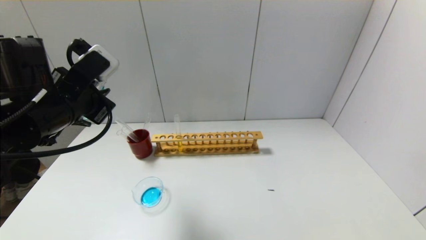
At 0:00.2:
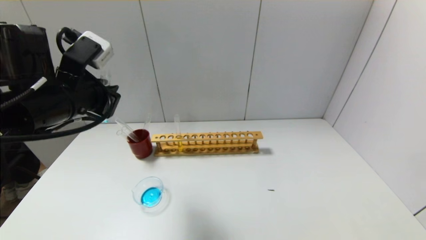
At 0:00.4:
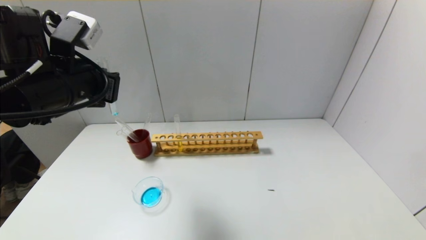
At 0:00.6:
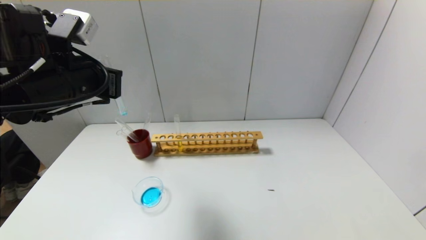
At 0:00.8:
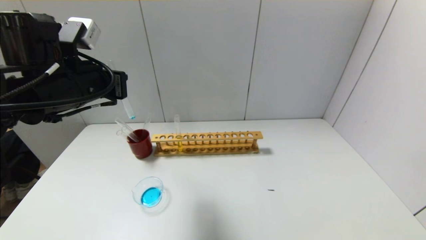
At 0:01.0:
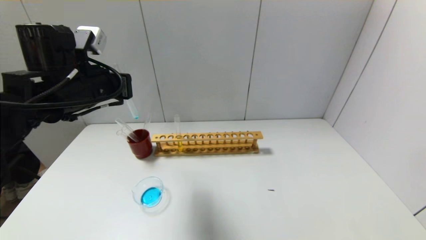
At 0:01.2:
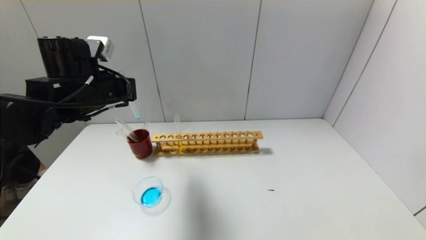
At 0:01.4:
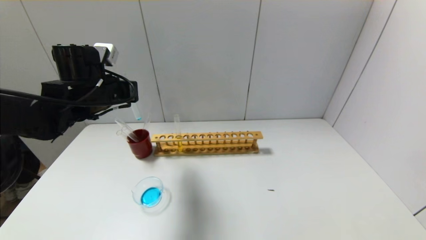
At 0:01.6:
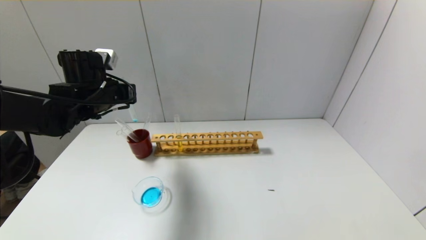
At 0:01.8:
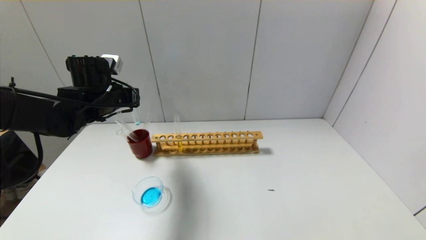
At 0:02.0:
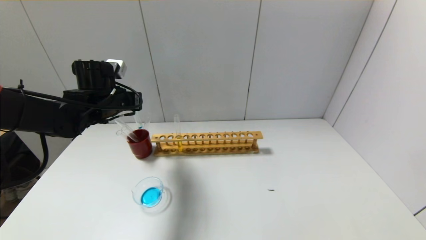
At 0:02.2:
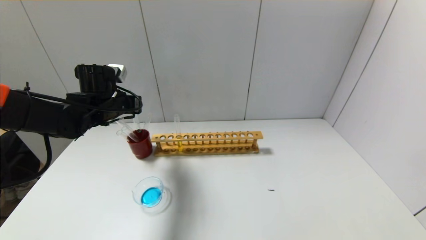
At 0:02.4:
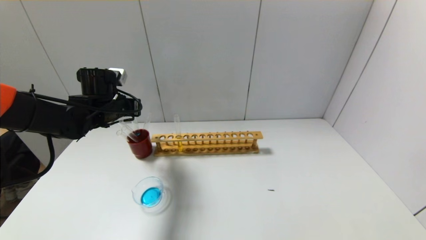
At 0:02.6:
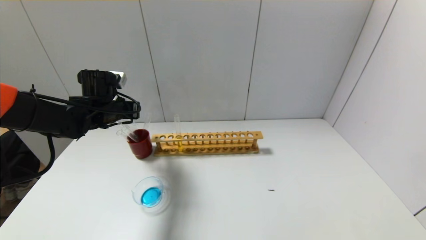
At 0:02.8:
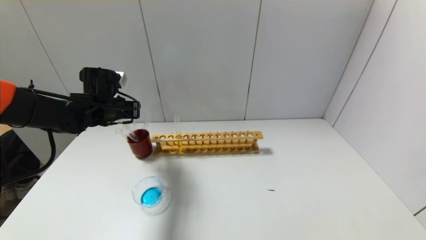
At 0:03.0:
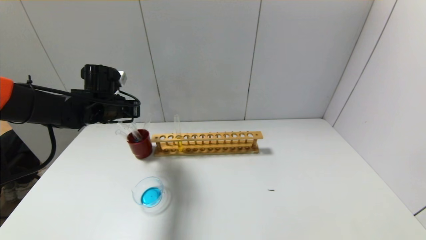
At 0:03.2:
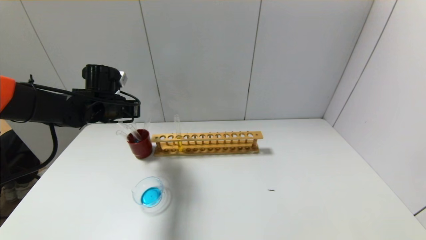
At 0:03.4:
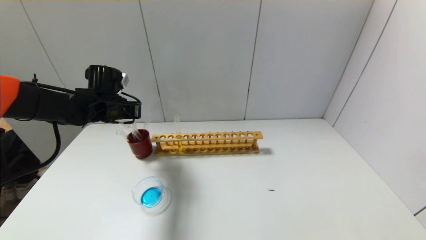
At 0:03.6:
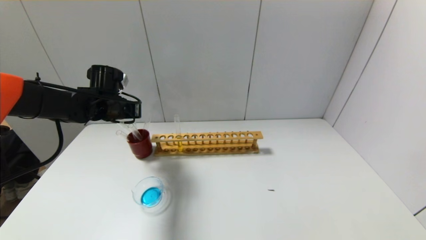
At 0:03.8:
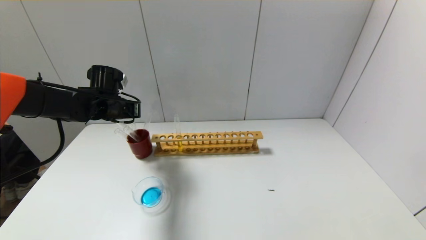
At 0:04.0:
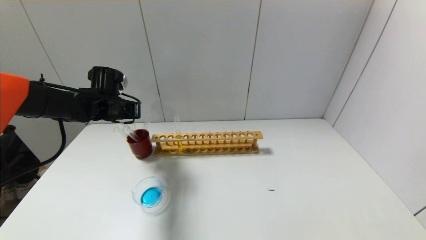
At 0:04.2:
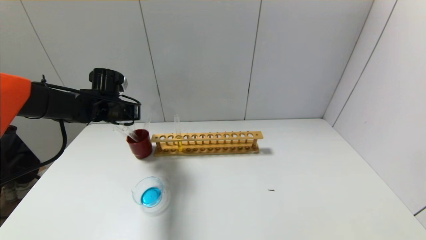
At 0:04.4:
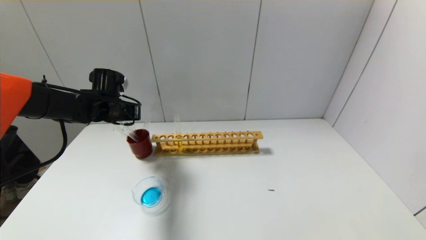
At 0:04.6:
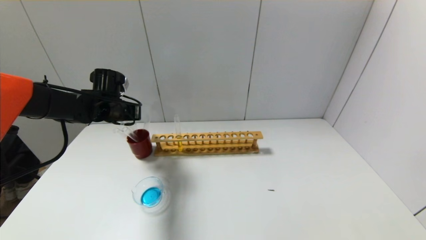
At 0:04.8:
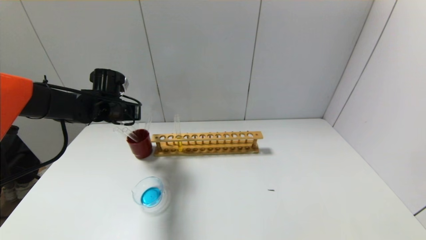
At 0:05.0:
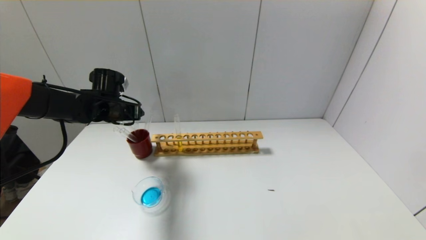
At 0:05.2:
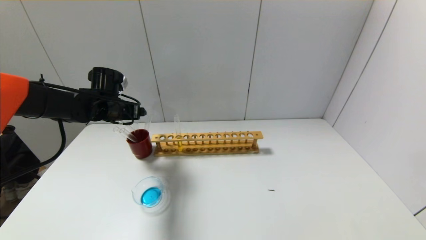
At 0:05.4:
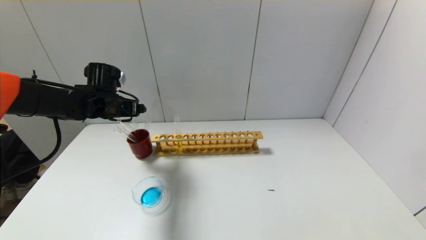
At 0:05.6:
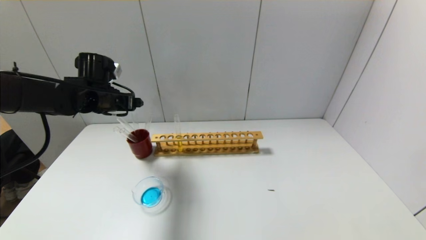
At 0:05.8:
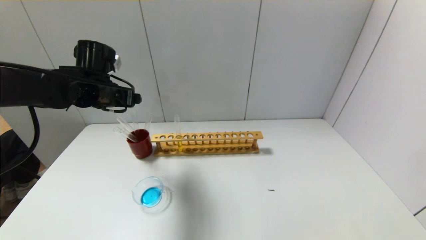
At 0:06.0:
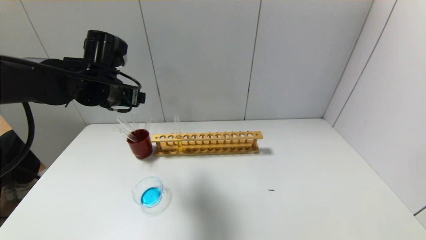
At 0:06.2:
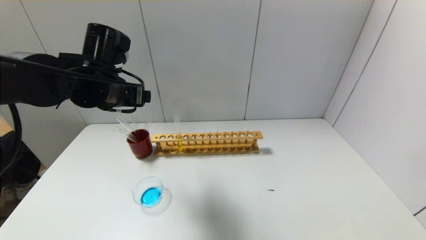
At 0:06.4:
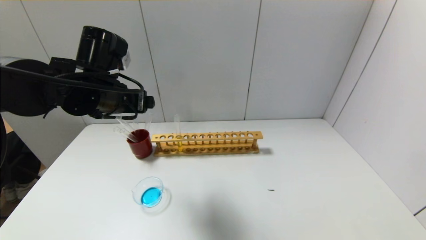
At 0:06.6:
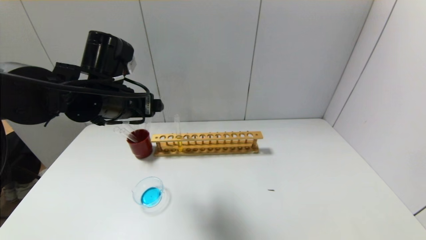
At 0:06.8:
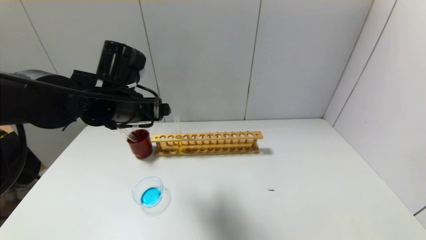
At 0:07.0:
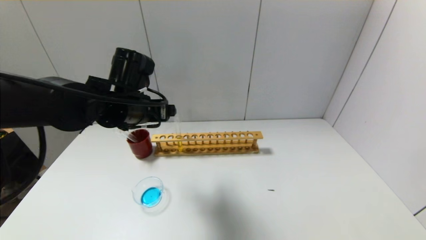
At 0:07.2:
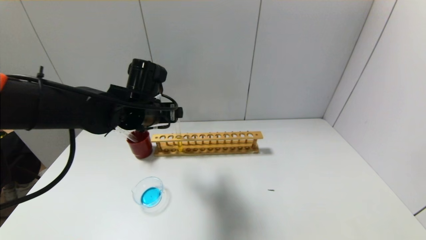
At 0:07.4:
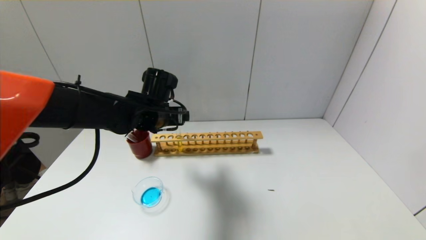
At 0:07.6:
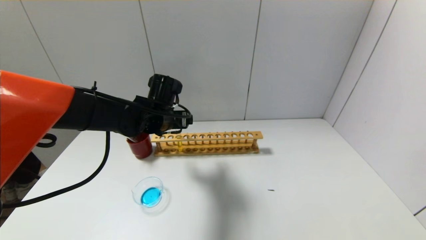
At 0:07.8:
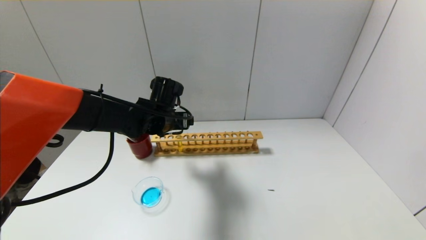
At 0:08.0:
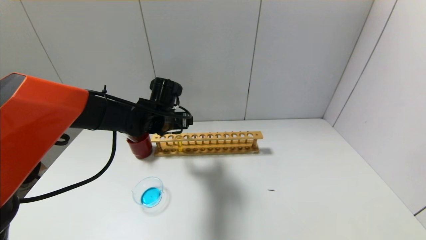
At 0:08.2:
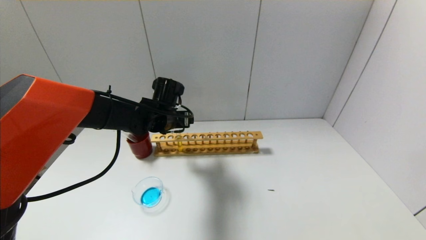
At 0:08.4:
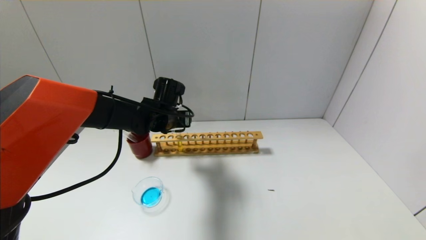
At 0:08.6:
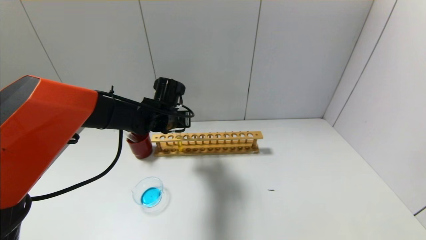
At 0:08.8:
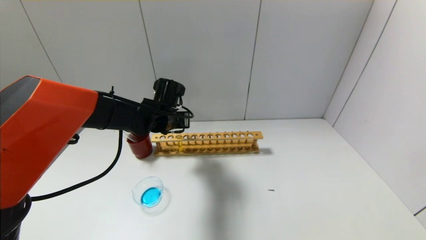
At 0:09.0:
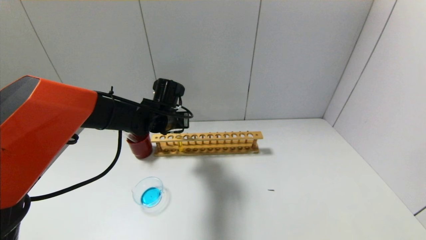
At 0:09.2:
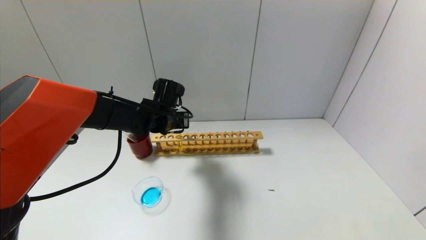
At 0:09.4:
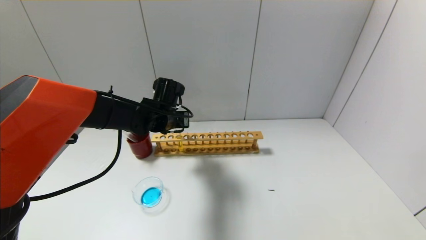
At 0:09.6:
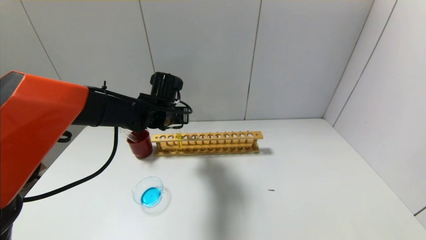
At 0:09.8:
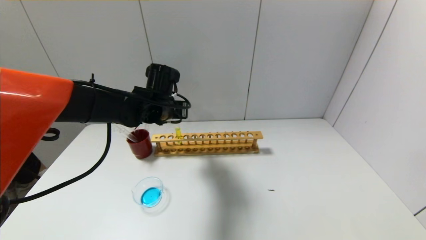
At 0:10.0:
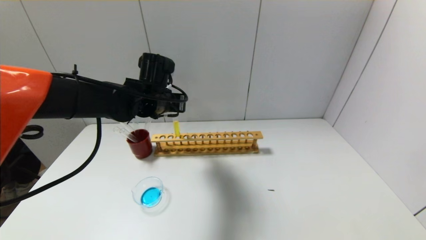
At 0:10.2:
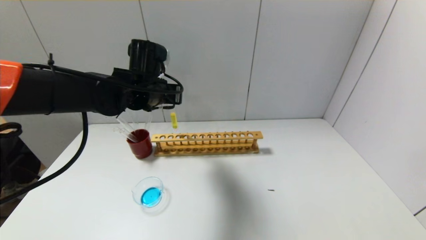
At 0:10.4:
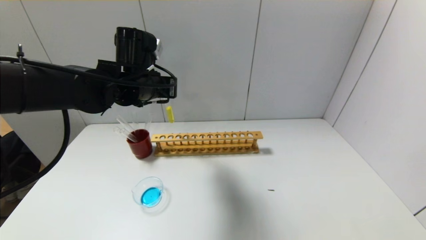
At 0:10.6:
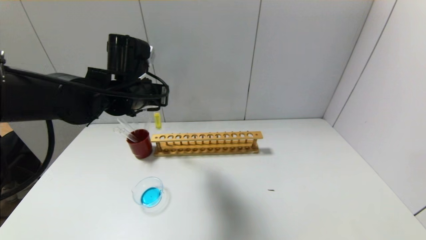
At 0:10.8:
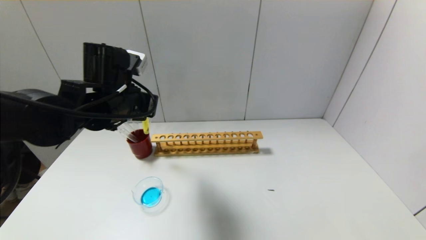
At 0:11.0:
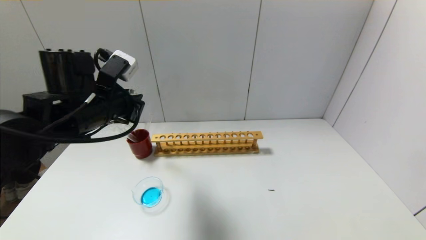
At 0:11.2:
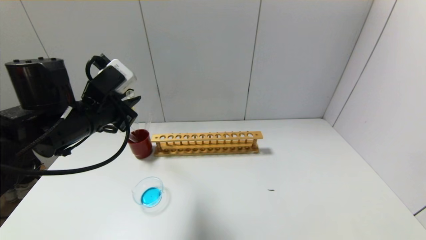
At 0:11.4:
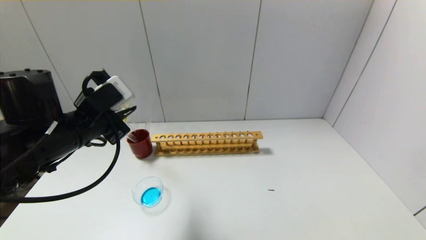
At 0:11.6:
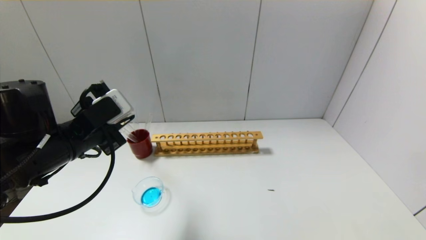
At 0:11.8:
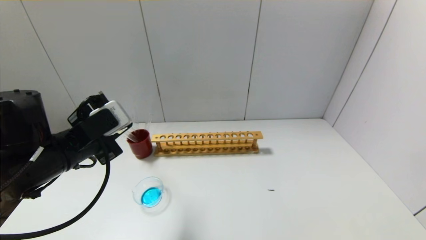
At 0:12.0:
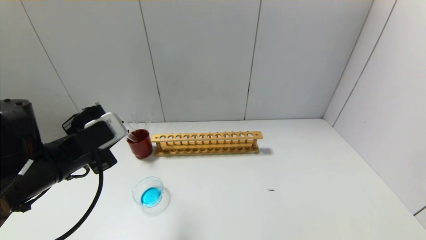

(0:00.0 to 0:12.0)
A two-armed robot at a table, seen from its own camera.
Step, 0:00.0 - 0:04.8: Place the test tube into the brown cup with the left gripper.
Step, 0:05.0 - 0:08.8: Grasp the yellow reagent with the left gripper.
0:00.0 - 0:01.6: The left gripper moves forward, approximately 10 cm.
0:01.6 - 0:03.0: The left gripper moves roughly 5 cm.
0:03.0 - 0:04.4: The grippers make only small movements.
0:04.4 - 0:06.0: The left gripper goes about 10 cm upward, backward and to the right, and opens up.
0:06.0 - 0:07.6: The left gripper travels to the right and downward by roughly 10 cm.
0:07.6 - 0:09.0: The left gripper closes its fingers.
0:09.0 - 0:10.4: The left gripper travels upward and backward by about 10 cm.
0:10.4 - 0:12.0: The left gripper moves backward, to the left and downward, some 20 cm.

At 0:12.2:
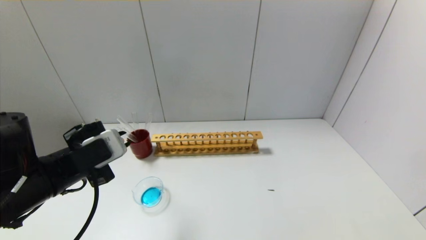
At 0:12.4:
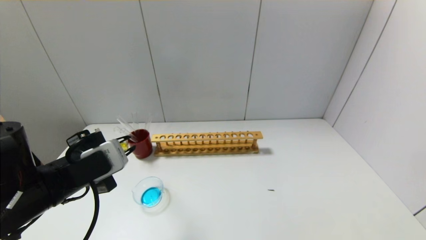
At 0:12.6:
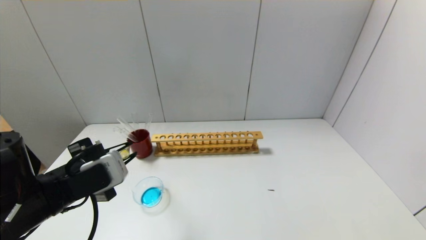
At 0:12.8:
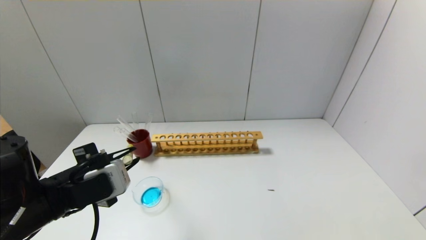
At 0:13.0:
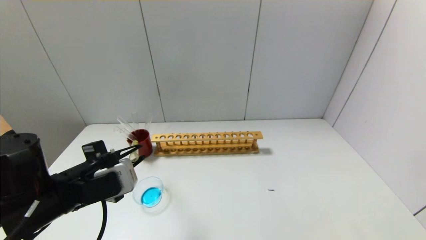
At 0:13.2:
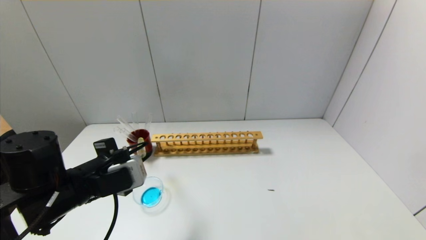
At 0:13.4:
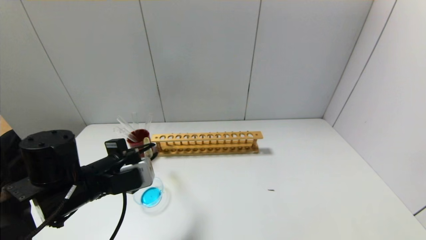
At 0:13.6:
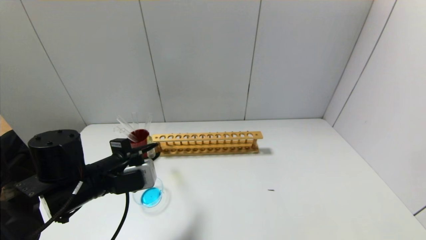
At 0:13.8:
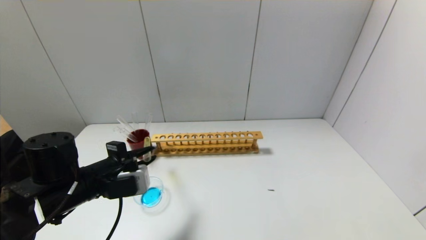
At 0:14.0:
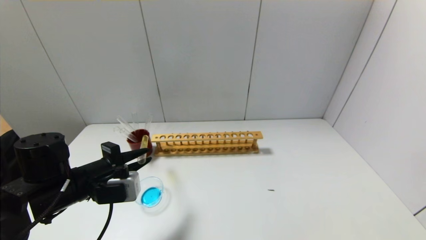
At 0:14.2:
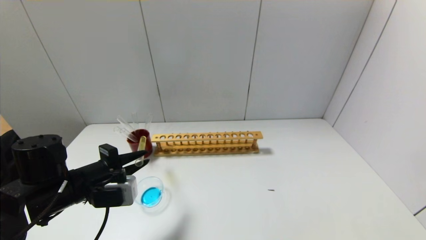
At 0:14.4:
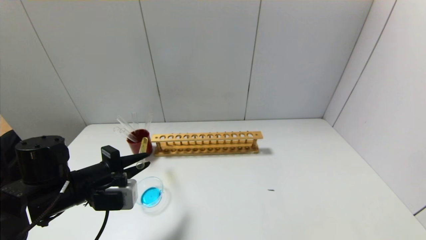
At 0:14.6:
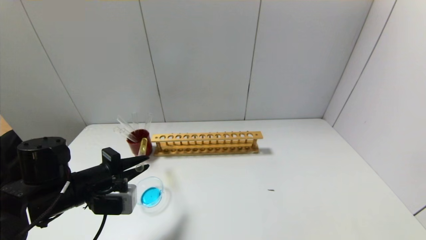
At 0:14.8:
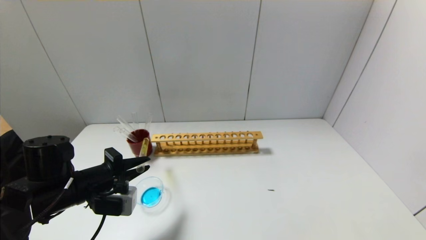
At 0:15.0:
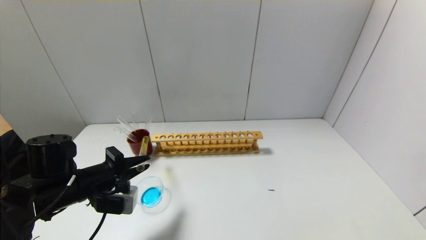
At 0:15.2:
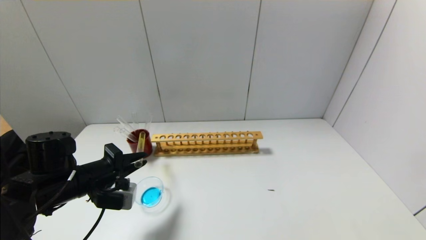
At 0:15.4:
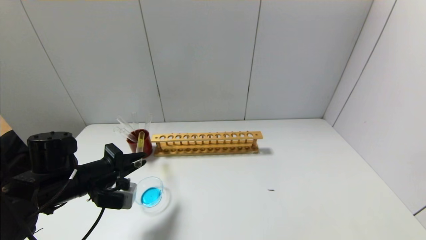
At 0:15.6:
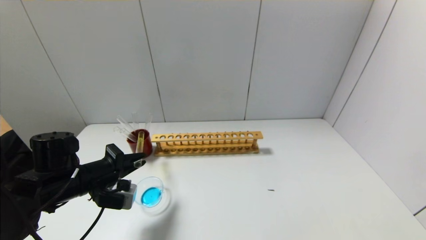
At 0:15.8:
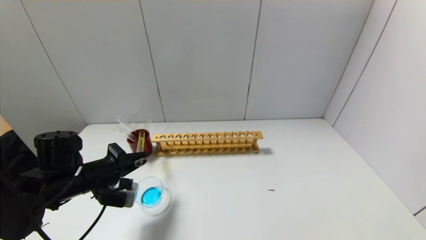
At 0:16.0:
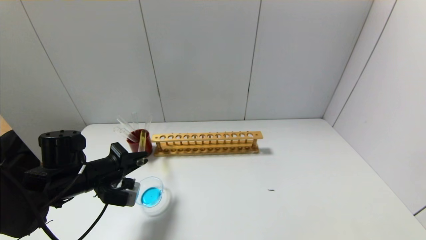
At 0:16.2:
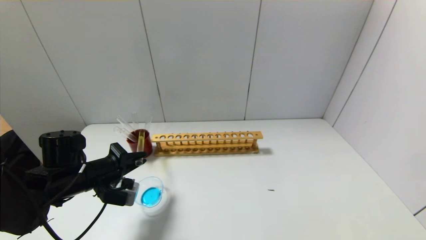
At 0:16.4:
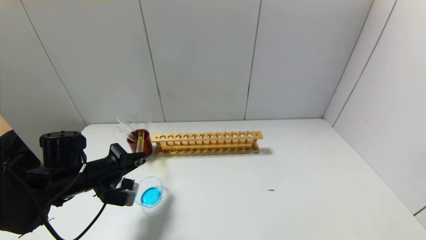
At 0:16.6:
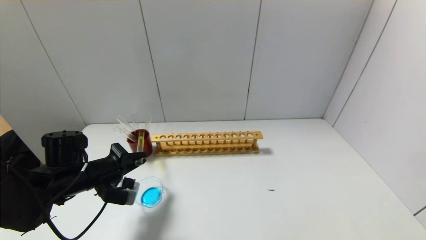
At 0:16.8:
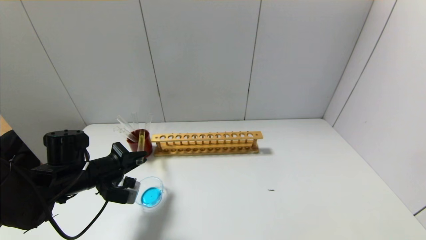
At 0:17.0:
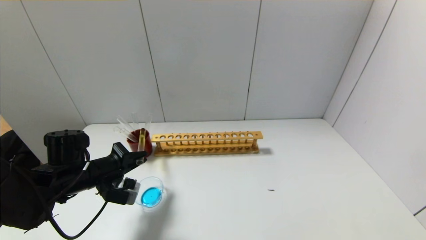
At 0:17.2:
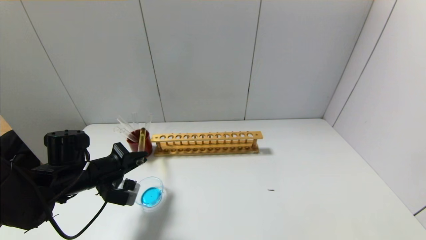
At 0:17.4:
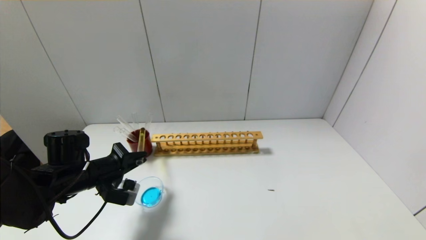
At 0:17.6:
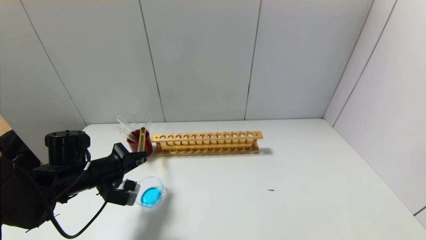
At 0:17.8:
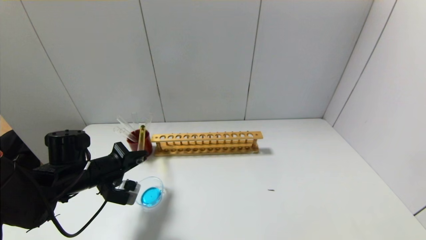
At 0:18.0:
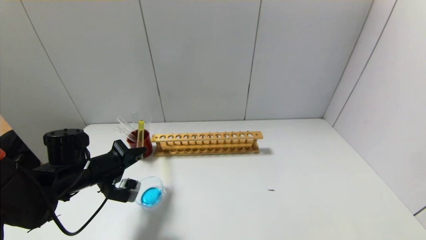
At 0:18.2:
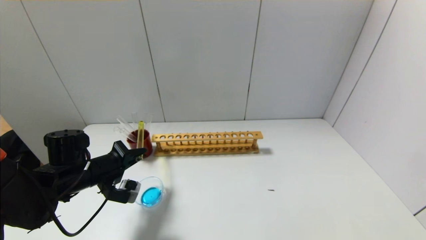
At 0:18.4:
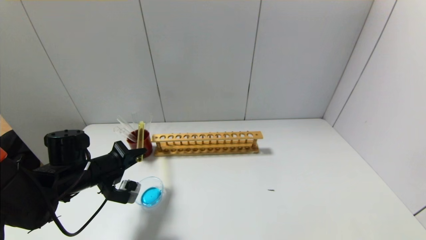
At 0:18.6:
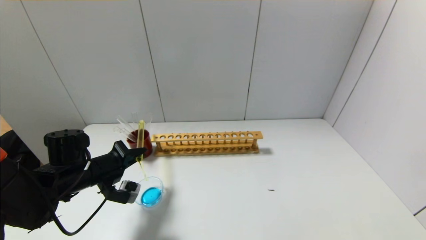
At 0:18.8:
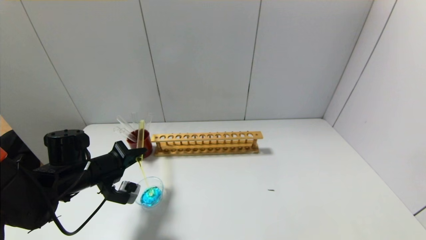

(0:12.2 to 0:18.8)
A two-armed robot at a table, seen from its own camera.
0:12.2 - 0:13.8: The left gripper is displaced downward by some 5 cm.
0:15.4 - 0:17.2: The grippers stay close to where they were, moving slightly.
0:17.2 - 0:18.8: The grippers make only small movements.
